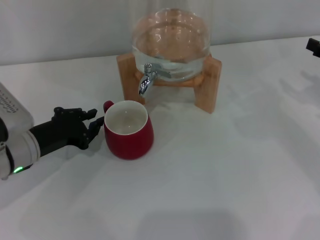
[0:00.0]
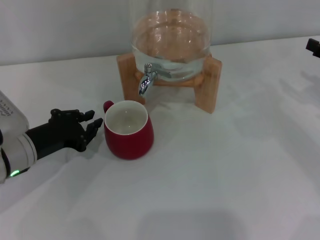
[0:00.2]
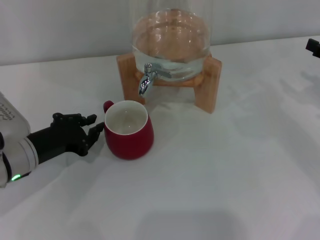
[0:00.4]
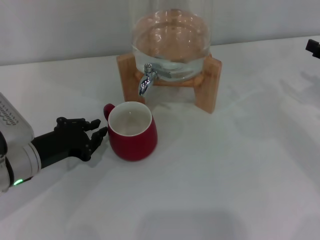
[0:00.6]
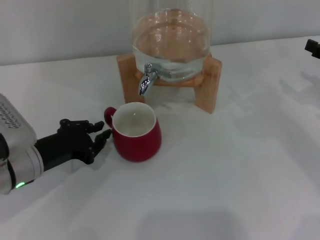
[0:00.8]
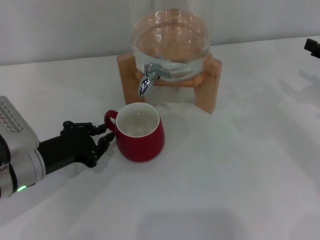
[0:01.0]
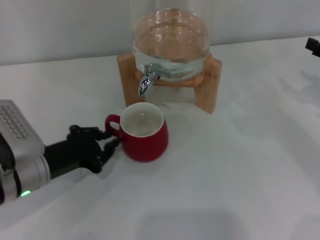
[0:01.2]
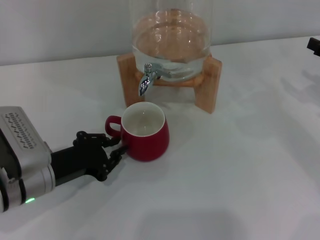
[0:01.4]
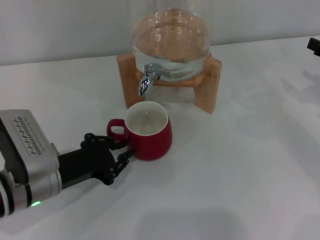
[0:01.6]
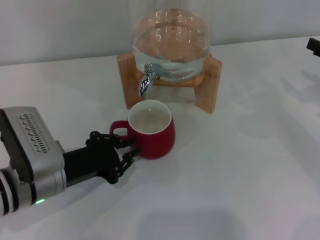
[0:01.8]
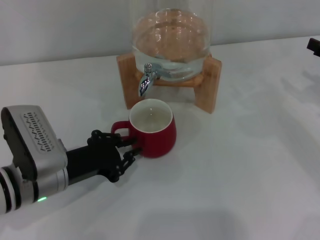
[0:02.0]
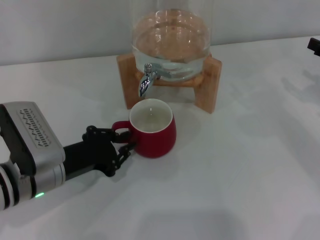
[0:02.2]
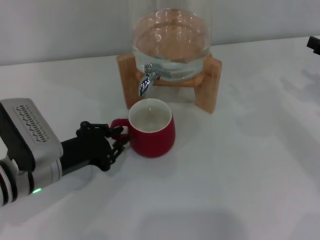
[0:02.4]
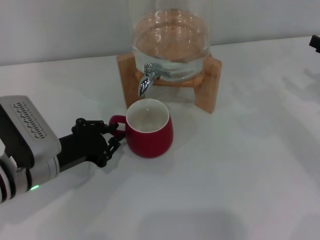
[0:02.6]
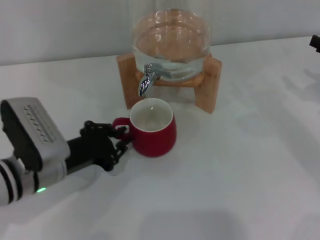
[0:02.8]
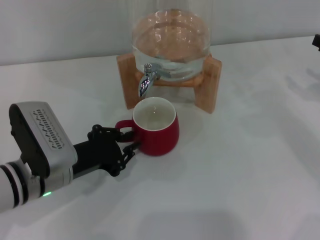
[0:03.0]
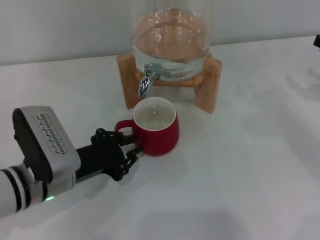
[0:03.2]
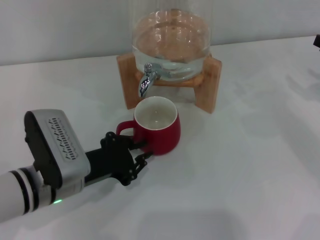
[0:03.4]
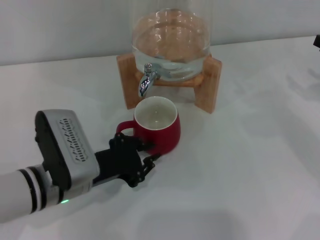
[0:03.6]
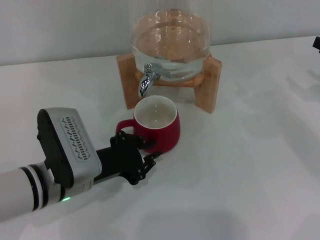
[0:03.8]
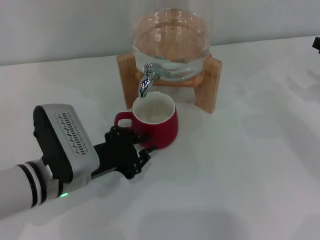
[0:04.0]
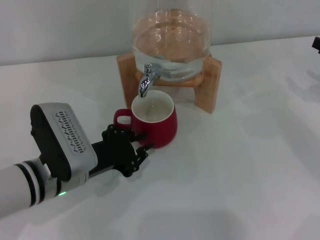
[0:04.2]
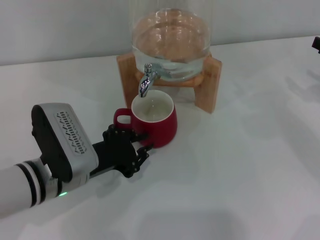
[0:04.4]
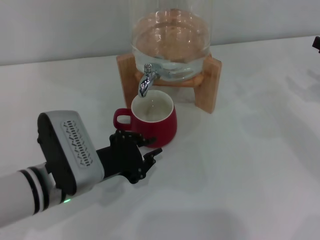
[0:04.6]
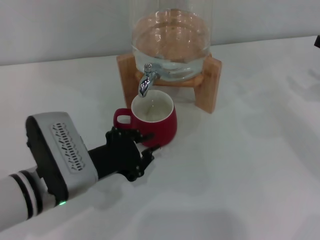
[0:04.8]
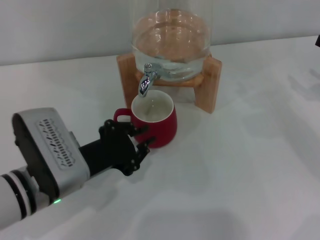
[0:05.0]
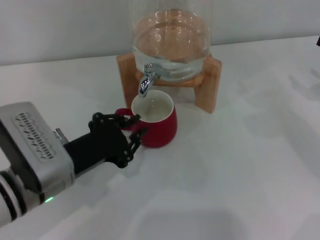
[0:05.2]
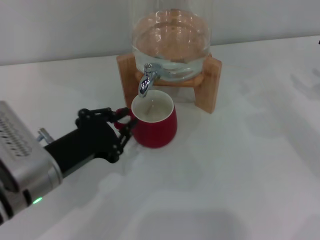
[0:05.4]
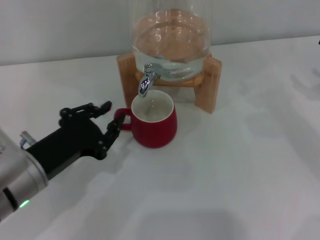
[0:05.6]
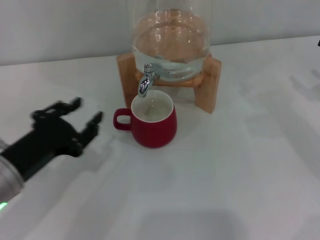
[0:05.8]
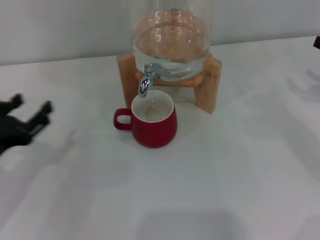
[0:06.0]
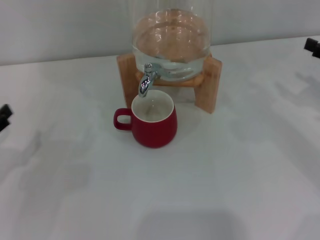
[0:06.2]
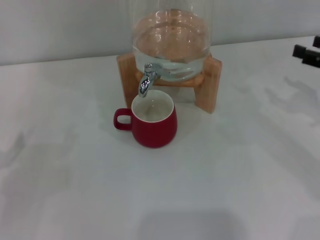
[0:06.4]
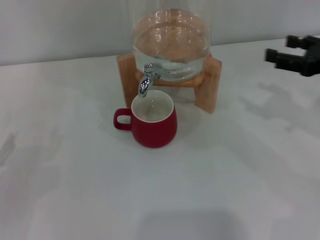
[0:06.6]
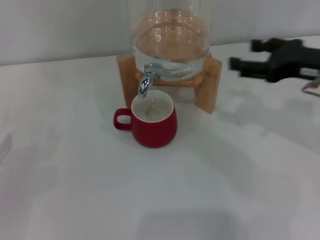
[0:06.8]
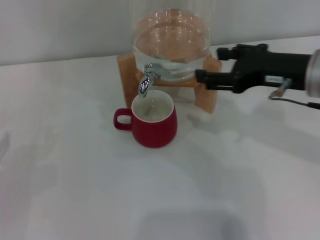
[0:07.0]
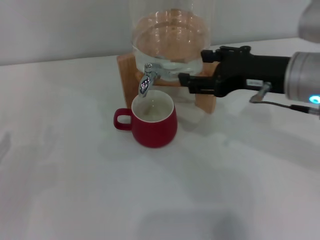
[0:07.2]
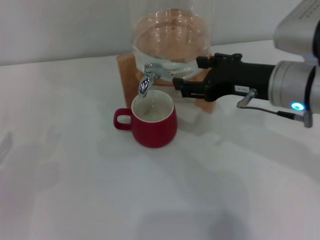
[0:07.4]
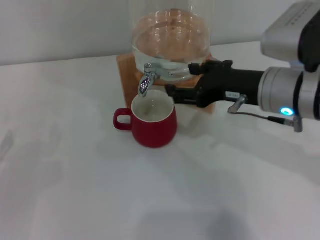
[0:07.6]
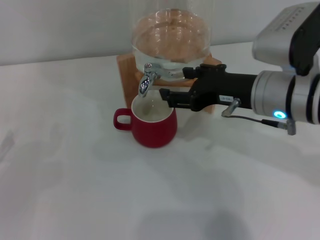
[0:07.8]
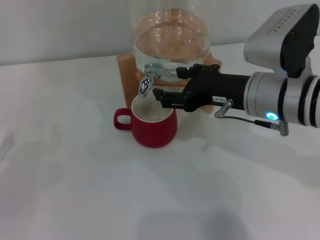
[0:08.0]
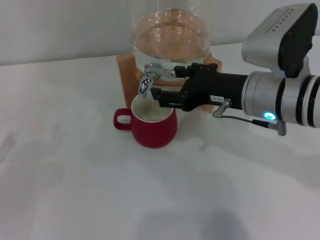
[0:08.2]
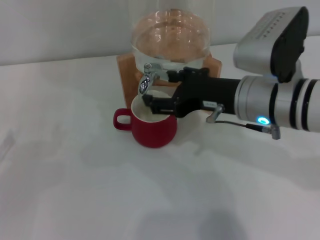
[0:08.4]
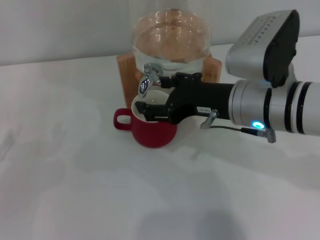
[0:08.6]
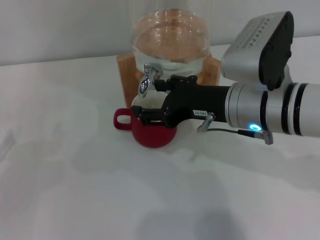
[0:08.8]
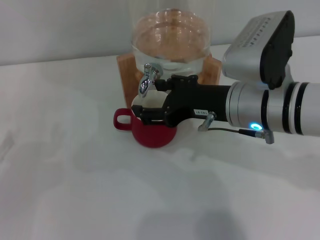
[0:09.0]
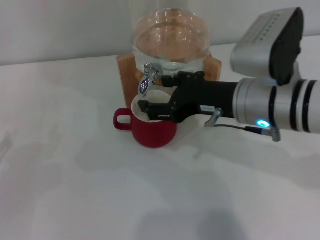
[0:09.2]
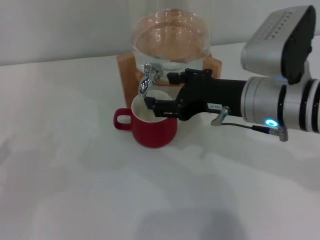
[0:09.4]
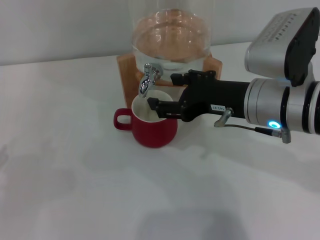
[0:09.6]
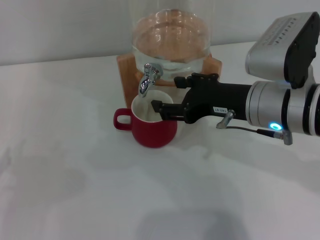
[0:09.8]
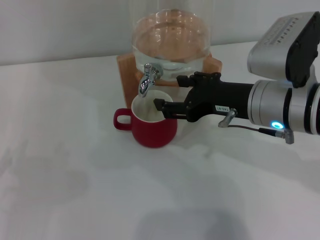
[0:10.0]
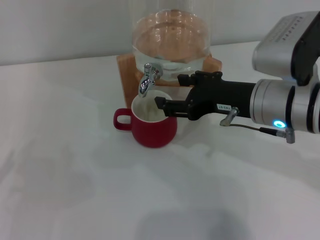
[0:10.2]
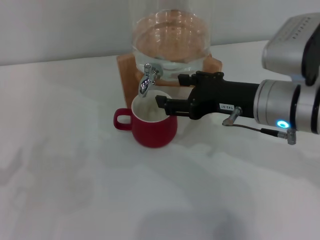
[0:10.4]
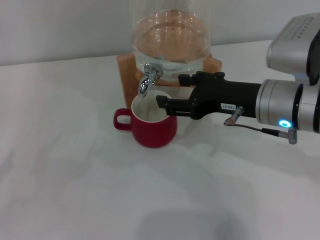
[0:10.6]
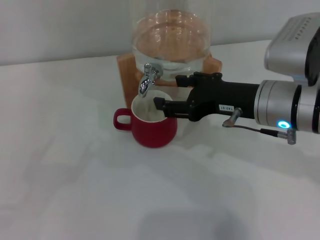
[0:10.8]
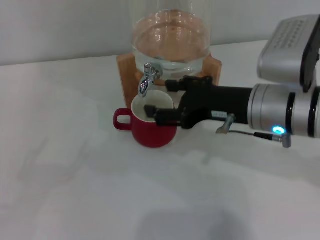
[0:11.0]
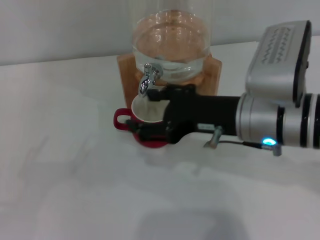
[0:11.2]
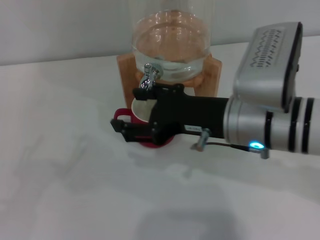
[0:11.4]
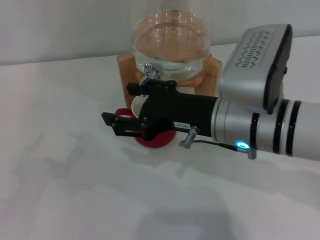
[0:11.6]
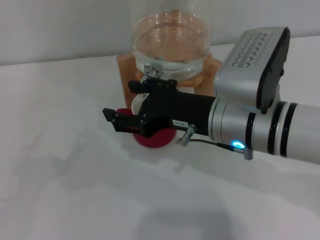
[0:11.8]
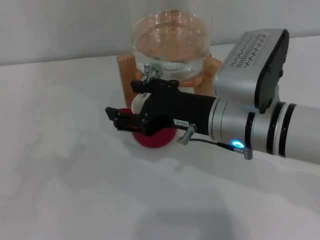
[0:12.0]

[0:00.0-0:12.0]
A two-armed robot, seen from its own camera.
Task of the whole recording: the left gripper pick up the red cup and place it horizontally under the faucet, the right gripper turn on the faucet to fill the cup, and then turn off the faucet.
Step, 0:00.0 to 0:09.2: Open the dispenser valve and fill the cup with water with the right gripper.
0:00.0 to 0:01.6: The left gripper goes approximately 5 cm backward.
0:01.6 to 0:04.4: The grippers make only small movements.
0:04.4 to 0:06.0: The left gripper heads to the left, covering some 10 cm, and opens its fingers.
0:06.0 to 0:07.6: The right gripper goes some 20 cm to the left, while the left gripper moves to the left, some 10 cm, and opens its fingers.
0:07.6 to 0:09.0: The grippers stay close to where they were, moving slightly.
0:09.0 to 0:10.4: The left gripper moves backward, approximately 5 cm.
0:10.4 to 0:12.0: The right gripper is displaced to the left by approximately 5 cm.

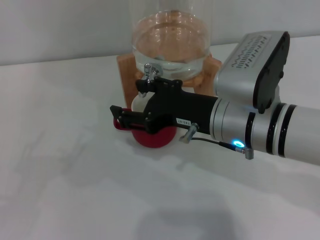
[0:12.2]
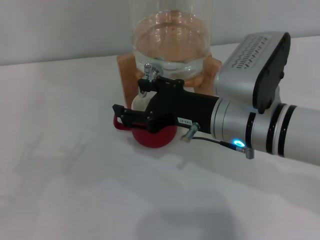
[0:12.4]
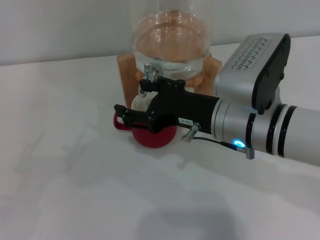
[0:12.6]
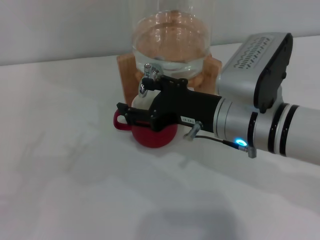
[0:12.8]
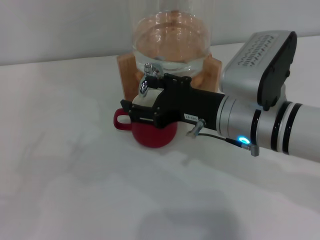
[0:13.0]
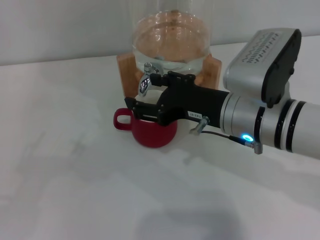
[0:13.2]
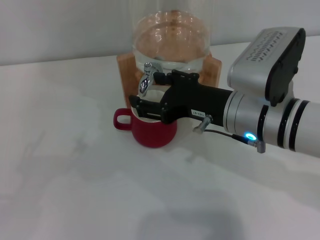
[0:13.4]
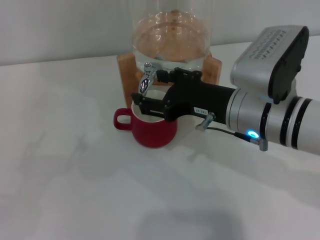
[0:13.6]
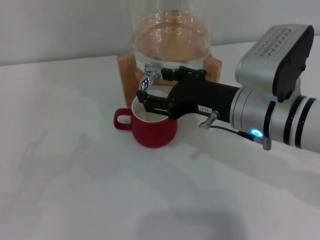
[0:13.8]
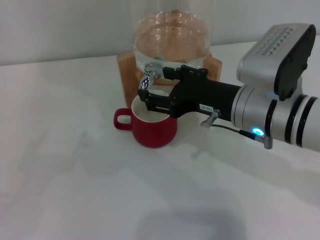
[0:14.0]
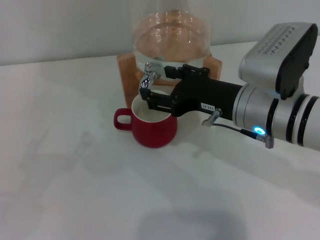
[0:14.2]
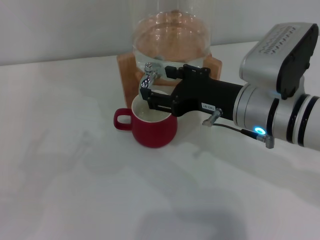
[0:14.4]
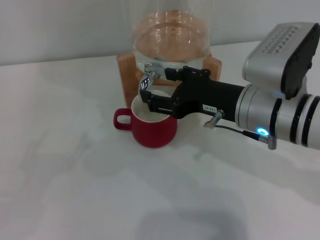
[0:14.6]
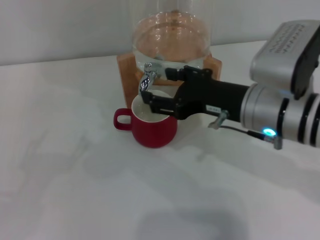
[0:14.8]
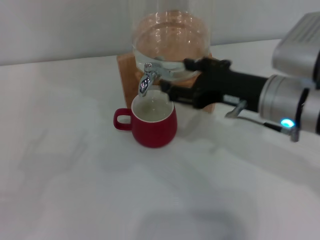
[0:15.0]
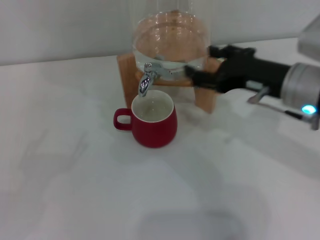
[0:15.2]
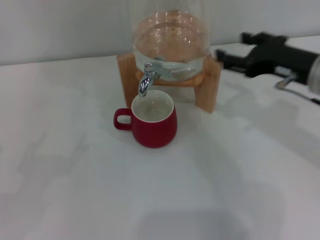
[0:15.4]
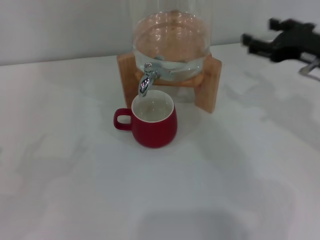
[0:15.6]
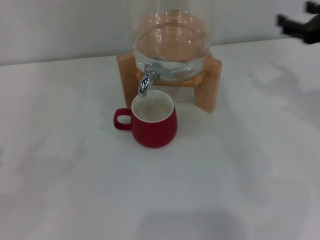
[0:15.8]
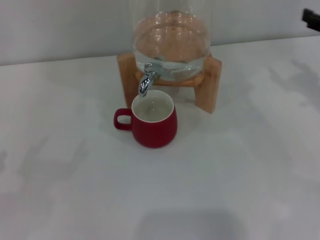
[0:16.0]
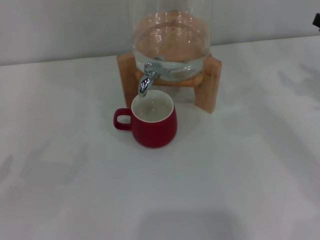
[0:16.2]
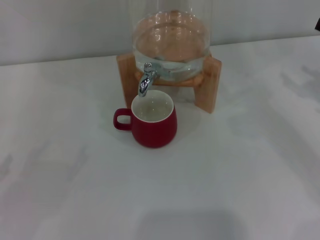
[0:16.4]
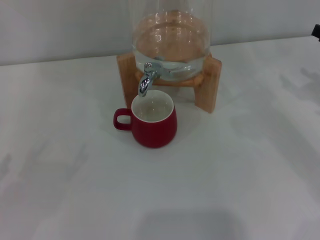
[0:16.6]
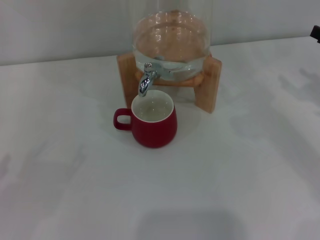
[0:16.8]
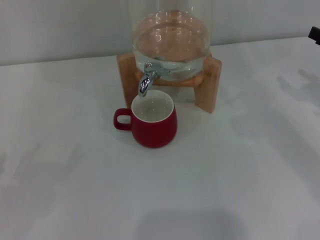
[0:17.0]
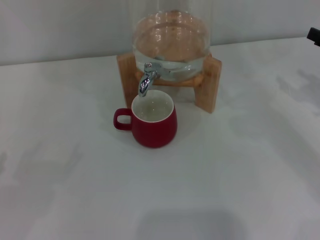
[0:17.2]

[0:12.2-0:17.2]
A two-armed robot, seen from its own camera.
Task of the whole recording: the left gripper pick up the red cup and place it horizontally under the faucet, the right gripper turn on the faucet to fill the cup, and then turn off the faucet.
Step, 0:12.2 to 0:14.8: Close the dispenser valve with the right gripper.
0:12.2 to 0:13.8: The grippers move only a little.
0:13.8 to 0:15.6: The right gripper goes about 15 cm to the right.
0:15.6 to 0:17.2: The right gripper moves to the right, approximately 10 cm.
